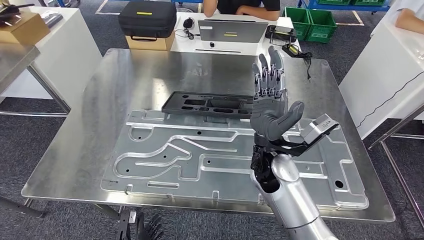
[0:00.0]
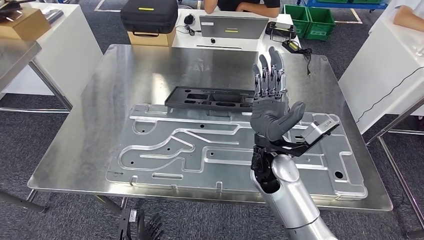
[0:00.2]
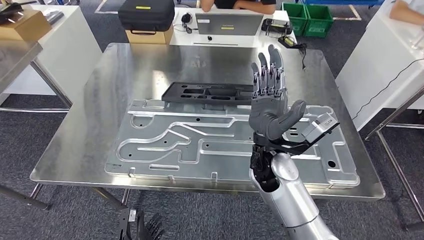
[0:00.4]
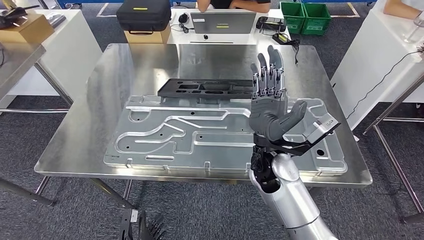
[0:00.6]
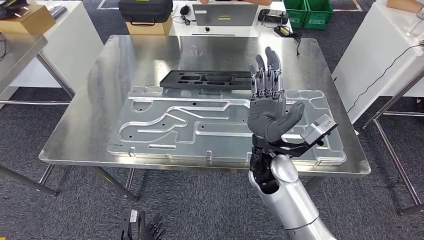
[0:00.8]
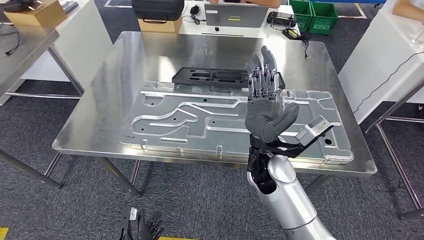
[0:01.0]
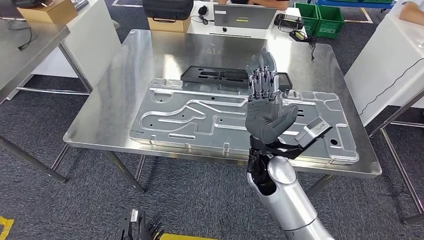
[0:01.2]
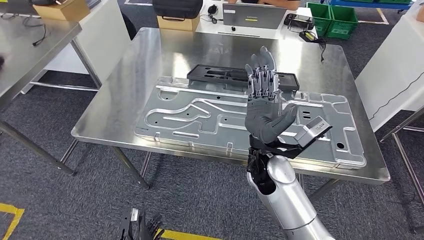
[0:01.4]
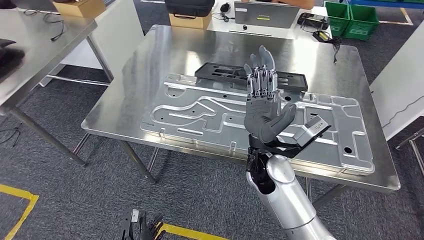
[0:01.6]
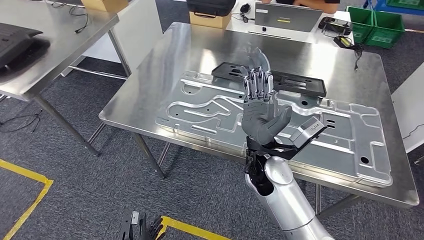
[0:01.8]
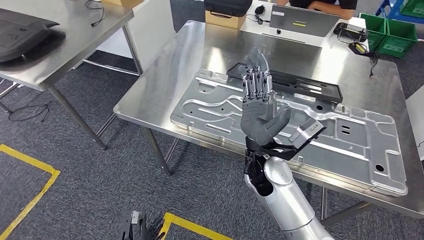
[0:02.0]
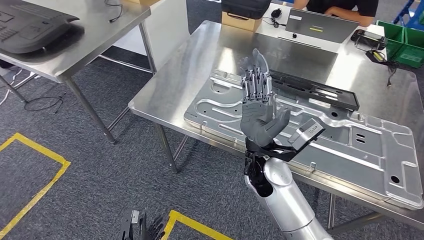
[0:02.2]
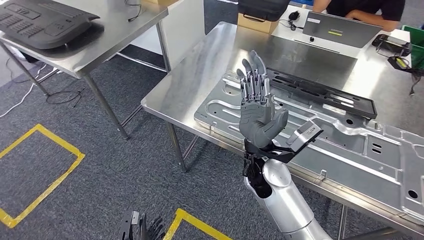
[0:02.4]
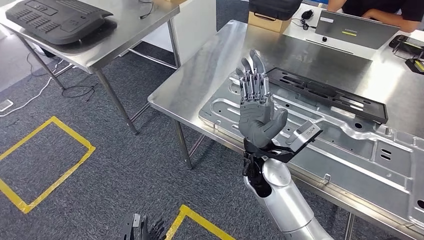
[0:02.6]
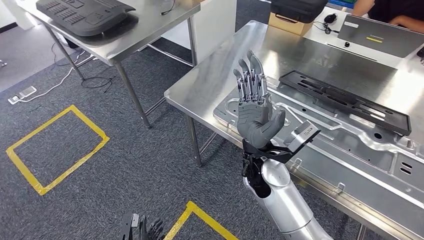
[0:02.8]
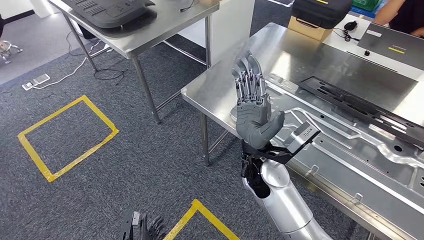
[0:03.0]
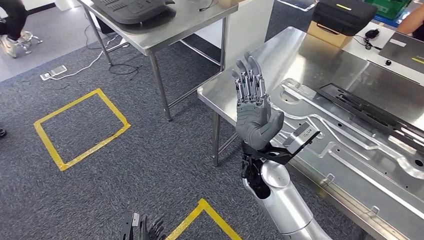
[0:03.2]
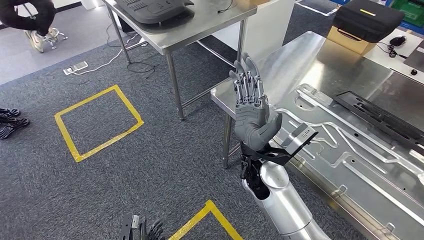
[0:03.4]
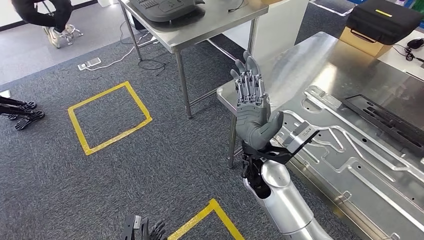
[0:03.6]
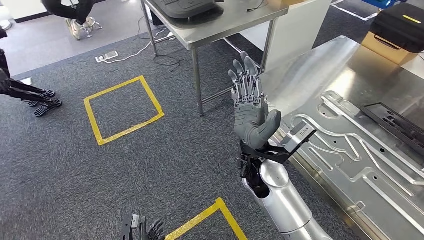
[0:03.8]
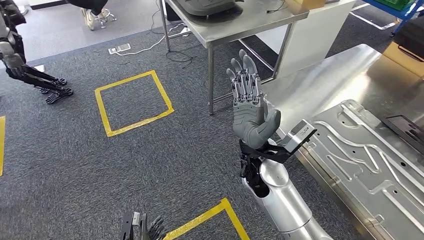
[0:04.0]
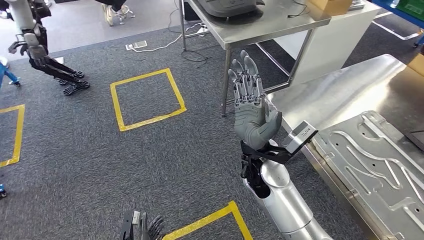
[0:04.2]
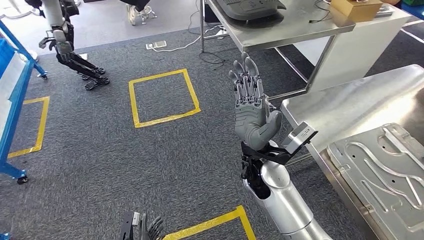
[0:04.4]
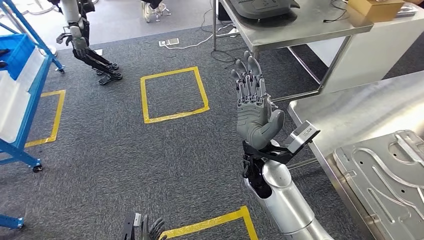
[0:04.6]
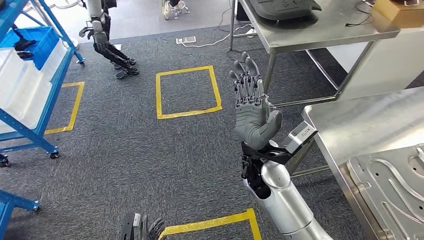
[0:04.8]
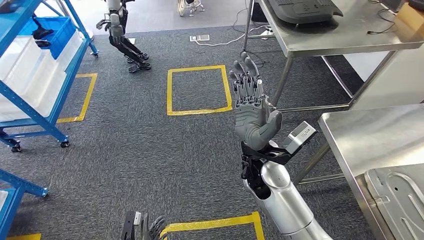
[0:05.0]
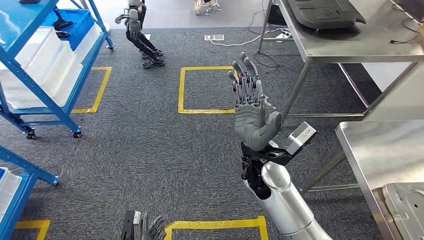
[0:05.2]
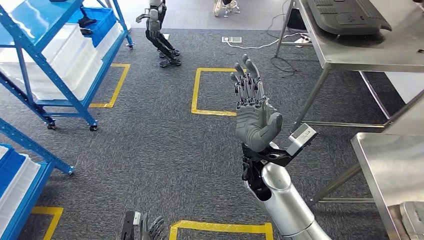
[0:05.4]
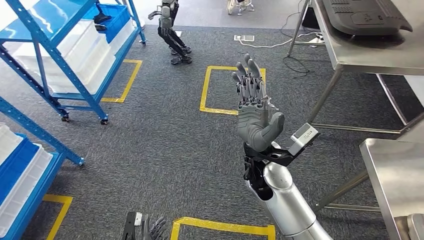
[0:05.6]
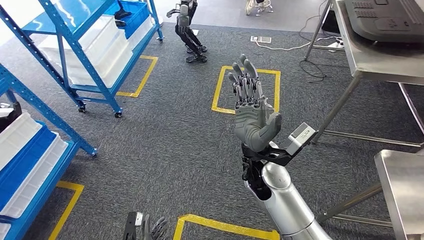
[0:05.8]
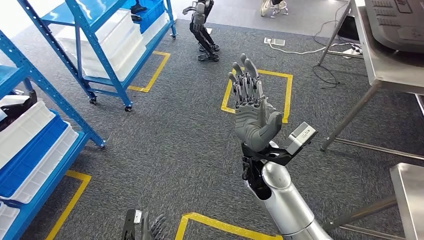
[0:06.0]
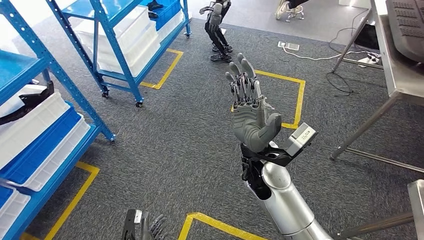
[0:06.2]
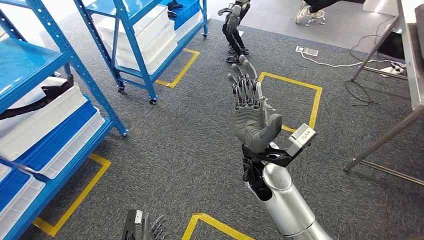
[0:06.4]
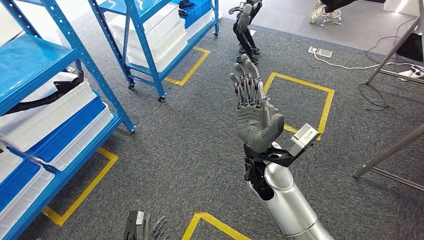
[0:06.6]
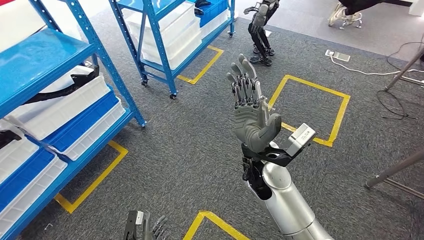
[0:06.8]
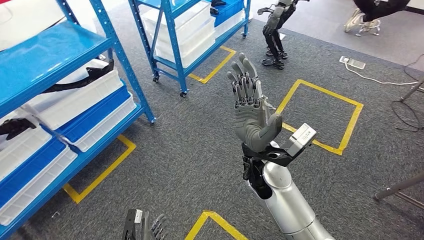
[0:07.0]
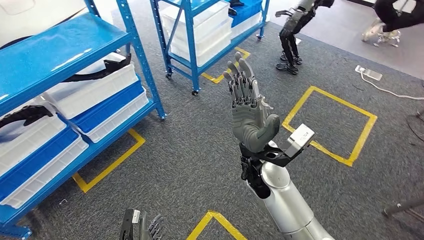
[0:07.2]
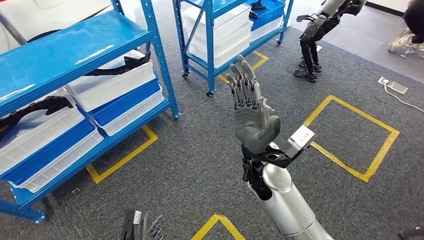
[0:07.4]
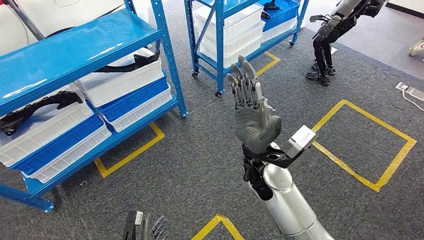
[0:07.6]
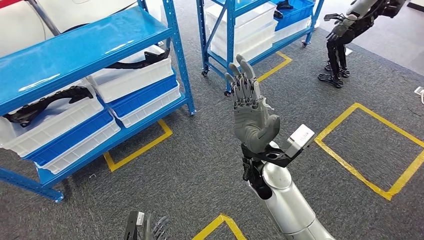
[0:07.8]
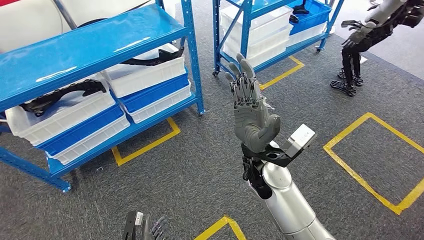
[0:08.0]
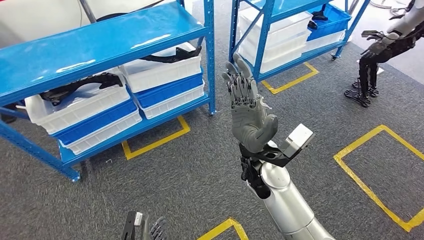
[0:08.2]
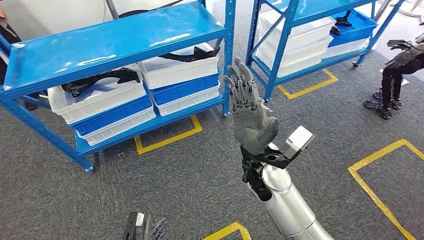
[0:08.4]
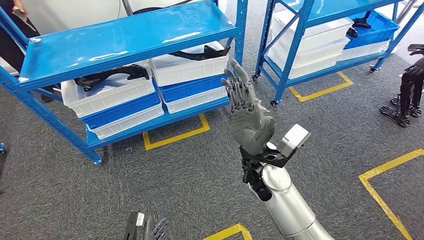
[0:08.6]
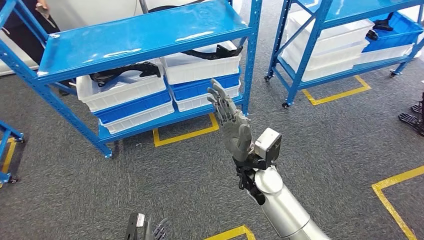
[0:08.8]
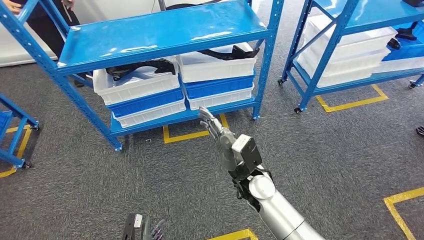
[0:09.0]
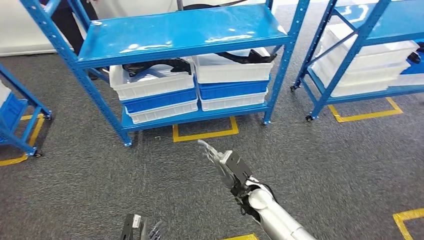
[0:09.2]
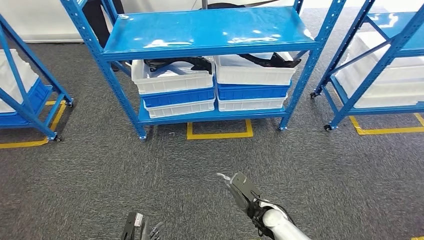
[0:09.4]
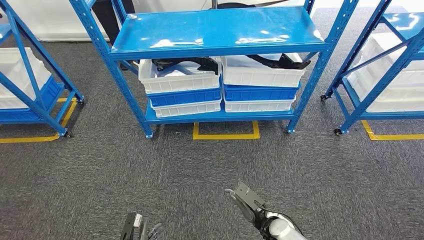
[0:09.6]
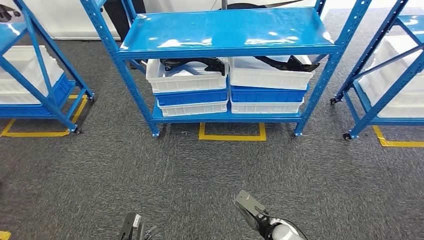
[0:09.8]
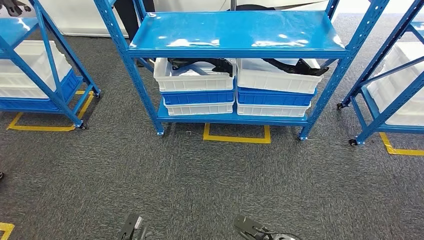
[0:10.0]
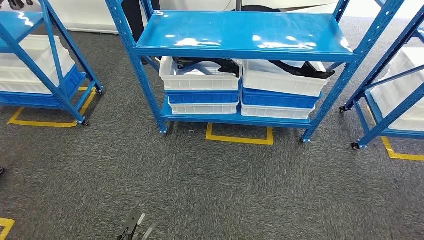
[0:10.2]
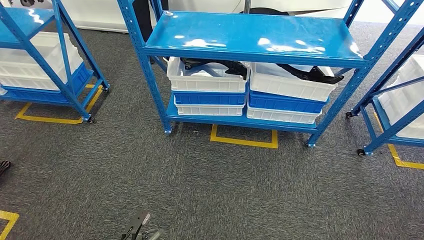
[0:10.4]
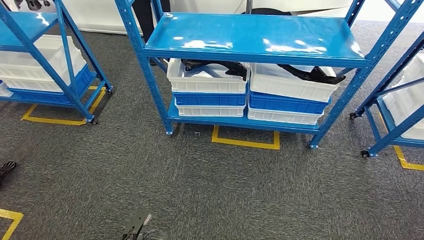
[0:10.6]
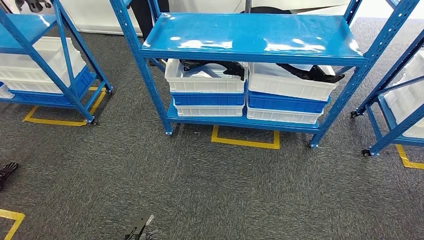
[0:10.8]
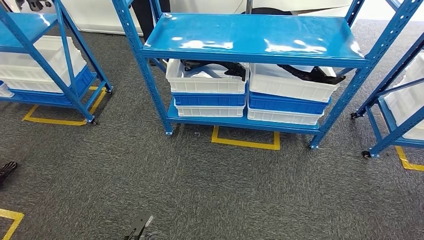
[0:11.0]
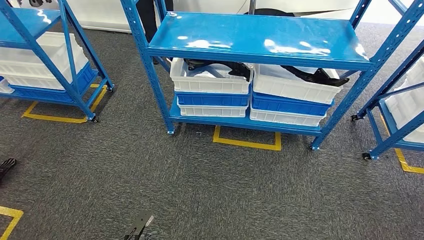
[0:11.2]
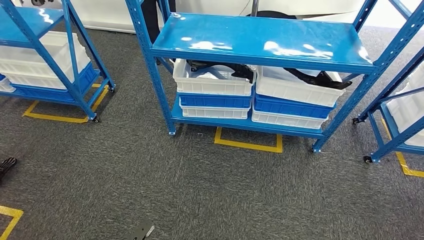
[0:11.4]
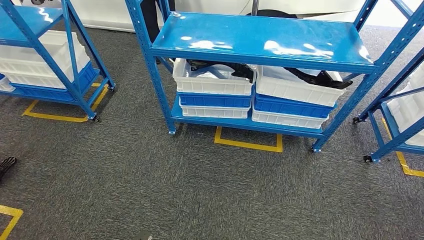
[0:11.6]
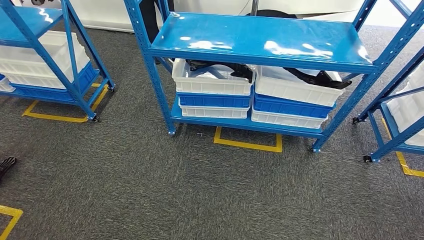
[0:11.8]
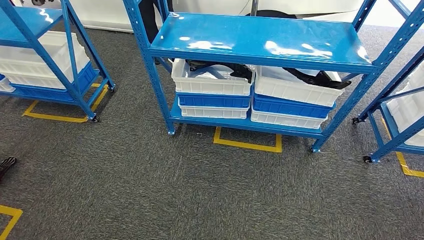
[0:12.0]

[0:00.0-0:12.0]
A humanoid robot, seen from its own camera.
Step, 0:00.4 to 0:10.8: Return to the initial position at the shelf.
